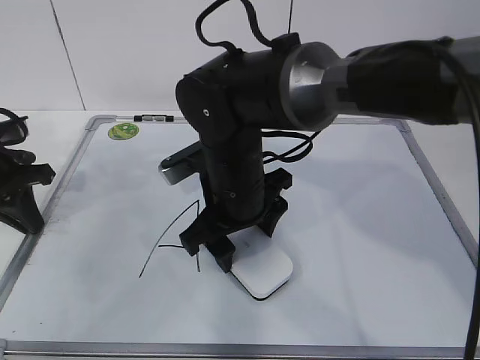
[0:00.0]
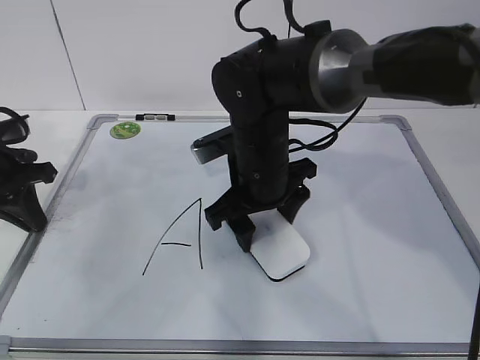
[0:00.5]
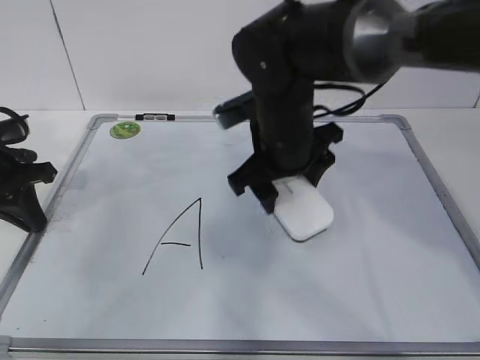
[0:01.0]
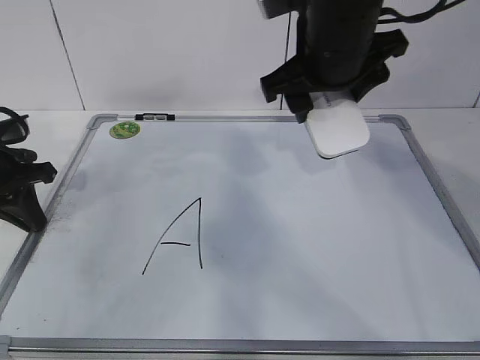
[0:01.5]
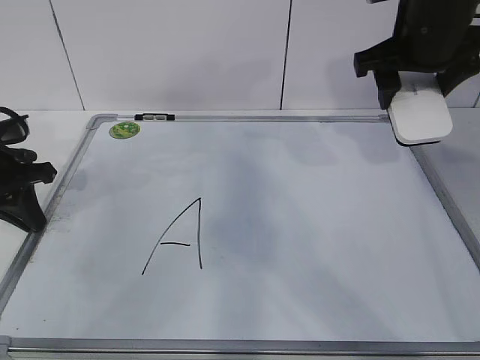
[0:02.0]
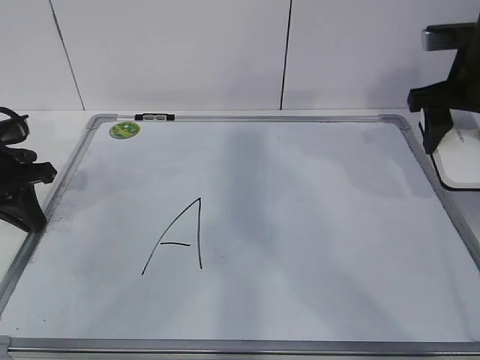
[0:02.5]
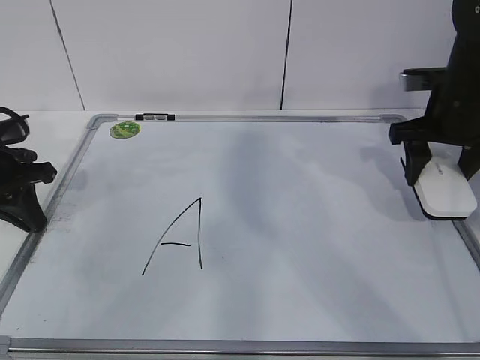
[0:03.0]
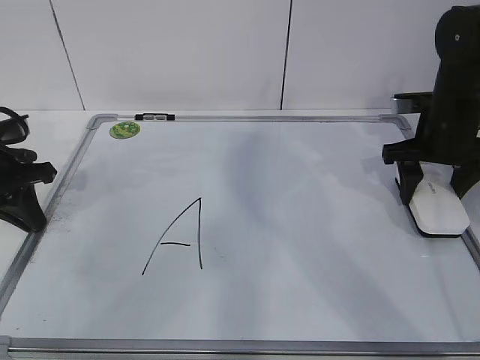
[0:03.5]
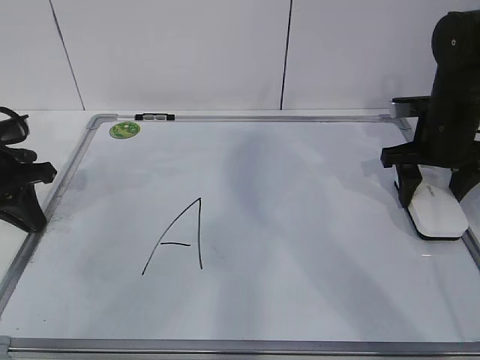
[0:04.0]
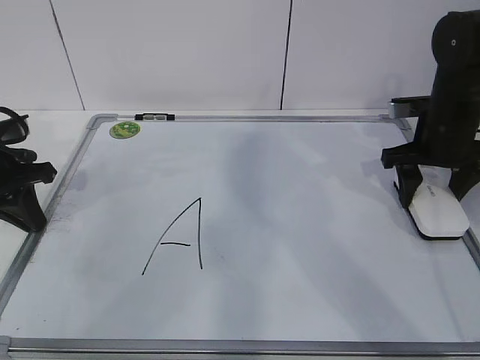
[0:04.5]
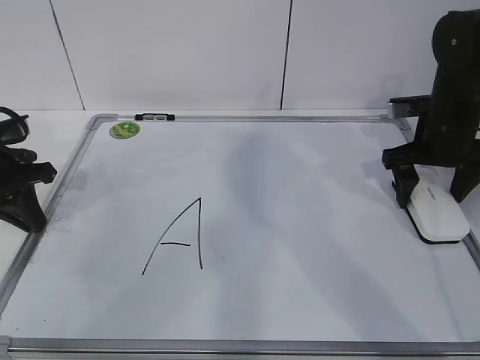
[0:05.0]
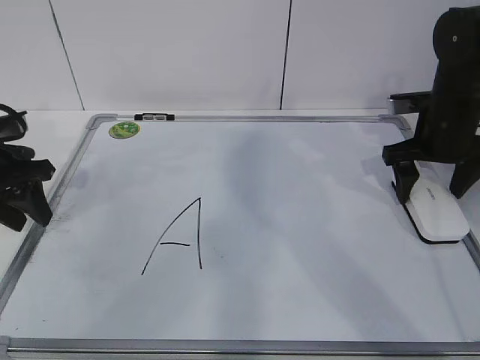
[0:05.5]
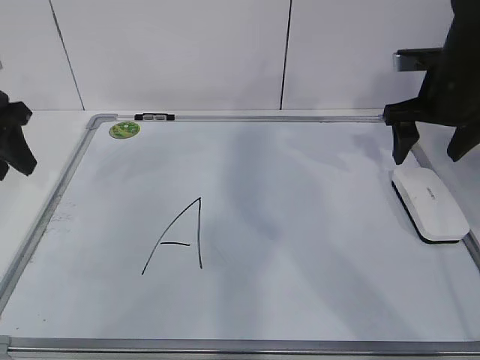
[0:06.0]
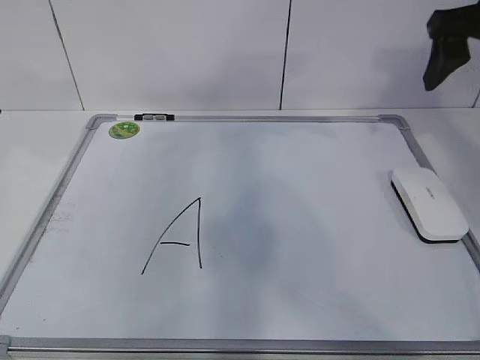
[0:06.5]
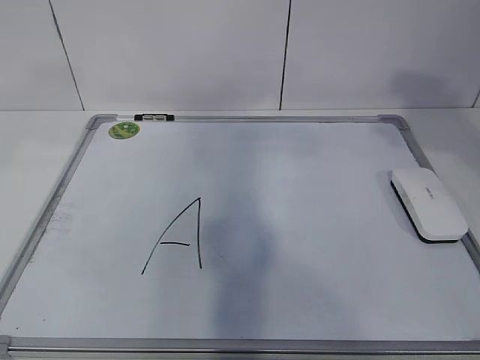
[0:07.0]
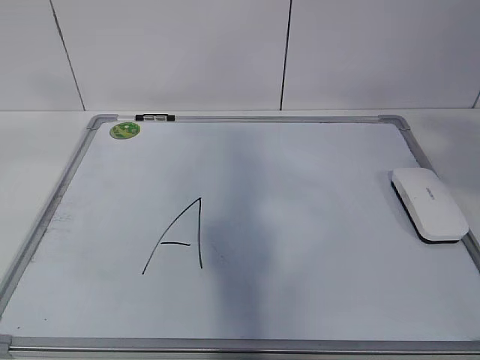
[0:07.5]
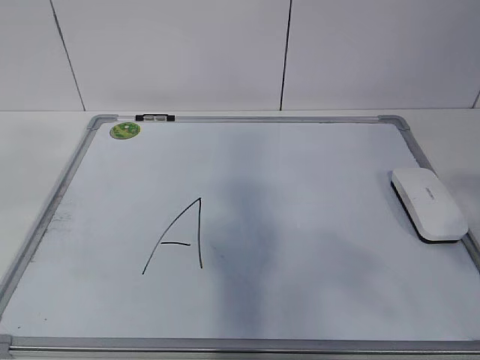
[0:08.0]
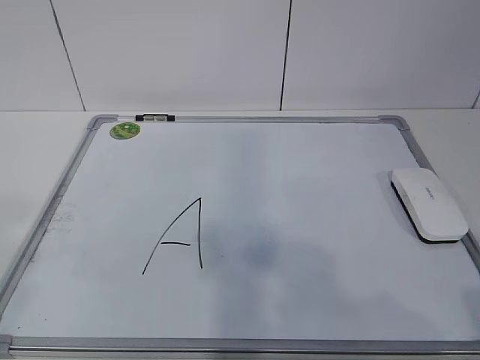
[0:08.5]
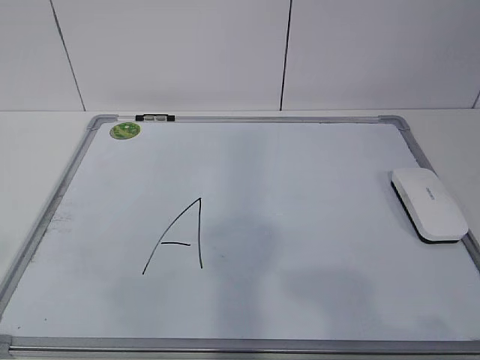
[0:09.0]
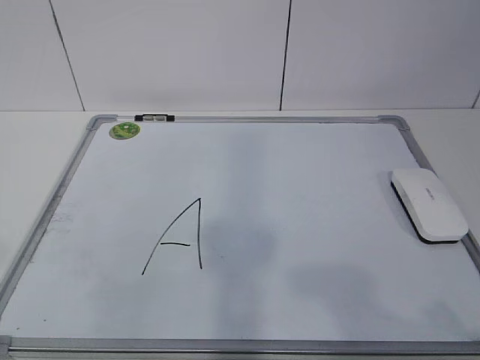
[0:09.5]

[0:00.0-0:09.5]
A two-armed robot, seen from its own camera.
Task of the whole recording: pick up the eraser on the blackboard and erase the letter "a".
0:00.0 to 0:02.0: The right gripper heads to the right and upward, covering about 25 cm.
0:02.0 to 0:04.0: The right gripper travels downward and to the right by approximately 15 cm.
0:04.0 to 0:05.5: The right gripper opens its fingers. Meanwhile the left gripper opens.
0:05.5 to 0:07.5: The left gripper travels upward and backward by approximately 40 cm; the right gripper travels backward and upward by roughly 40 cm, and closes its fingers.
0:07.5 to 0:09.5: Both grippers travel together downward and backward, about 20 cm.

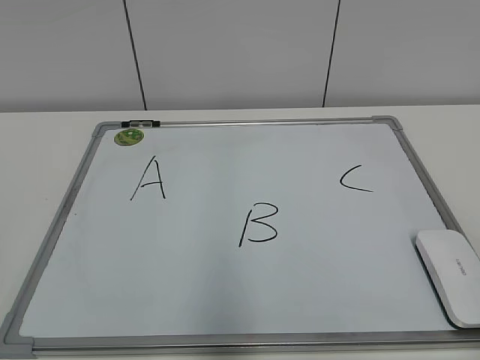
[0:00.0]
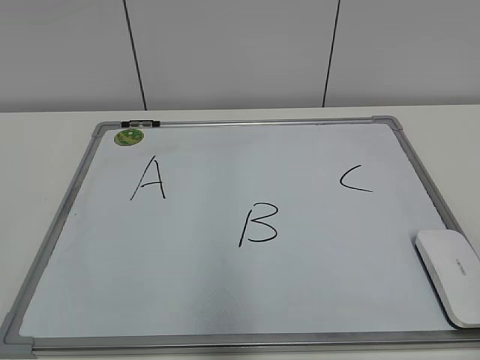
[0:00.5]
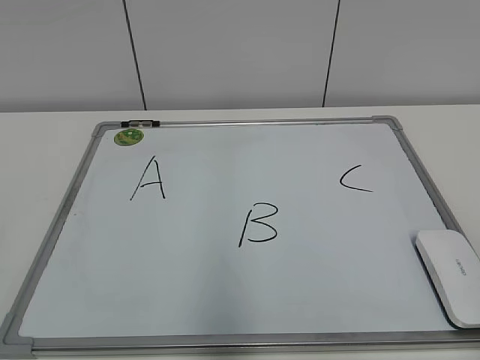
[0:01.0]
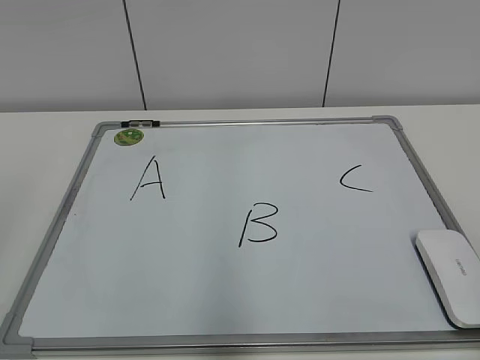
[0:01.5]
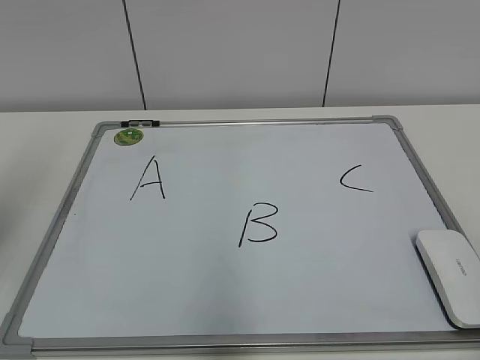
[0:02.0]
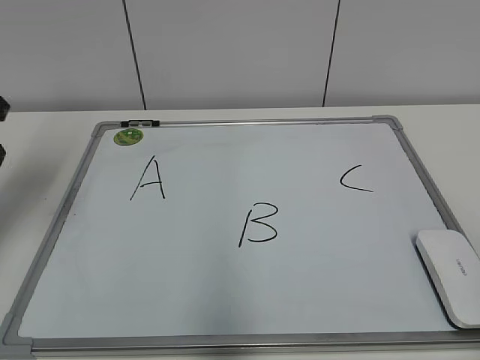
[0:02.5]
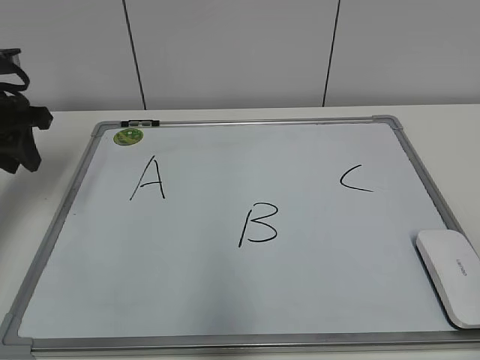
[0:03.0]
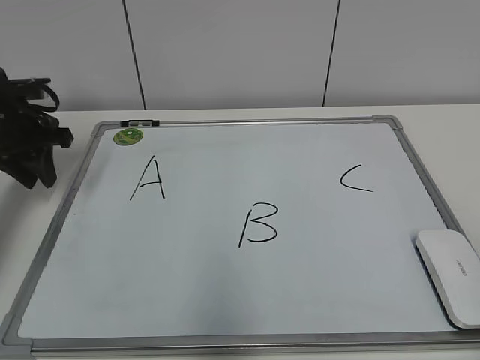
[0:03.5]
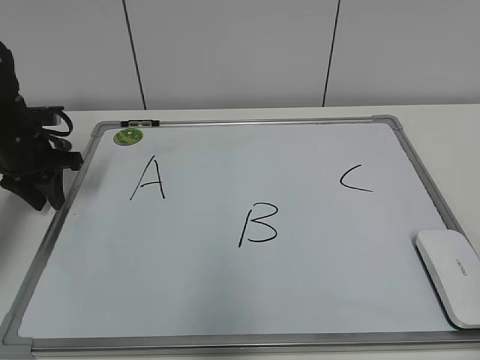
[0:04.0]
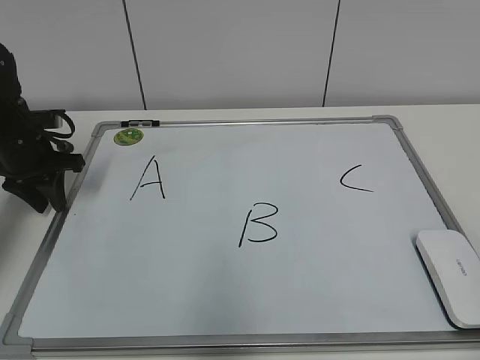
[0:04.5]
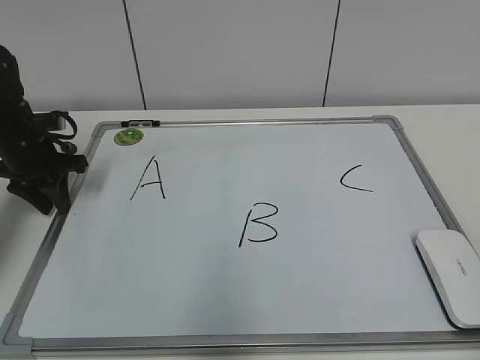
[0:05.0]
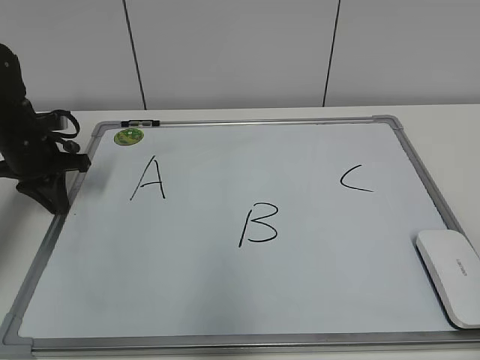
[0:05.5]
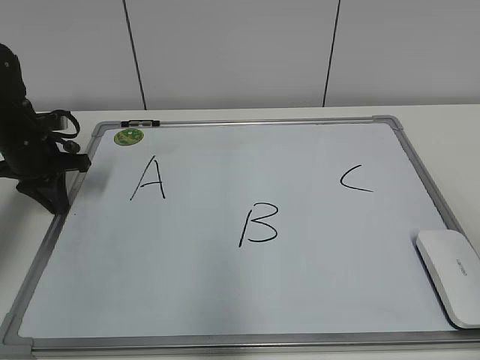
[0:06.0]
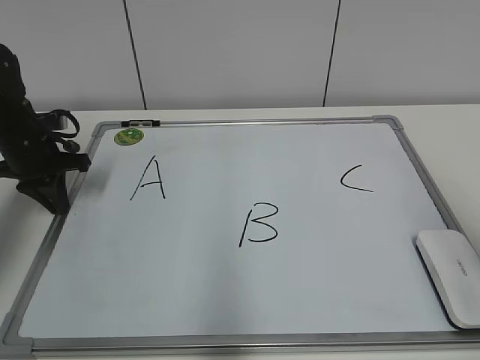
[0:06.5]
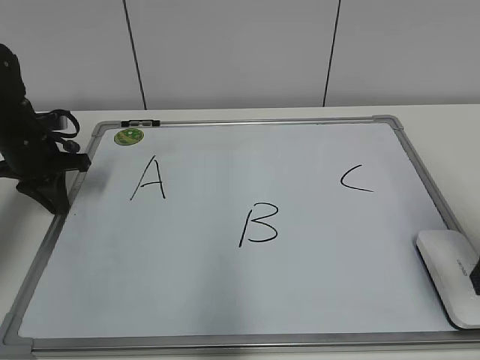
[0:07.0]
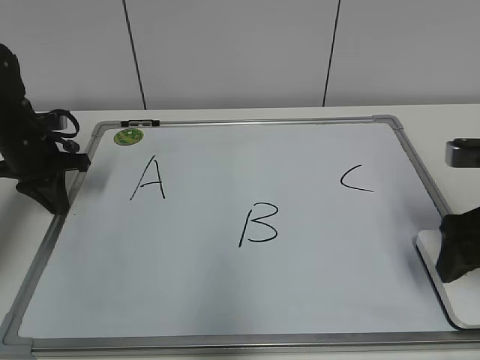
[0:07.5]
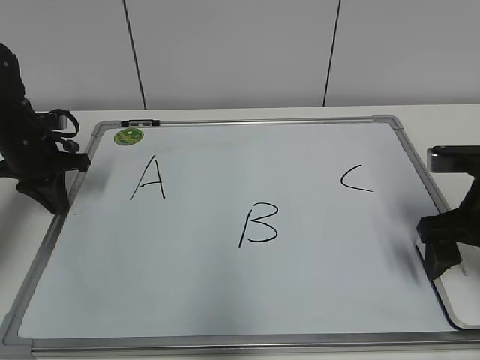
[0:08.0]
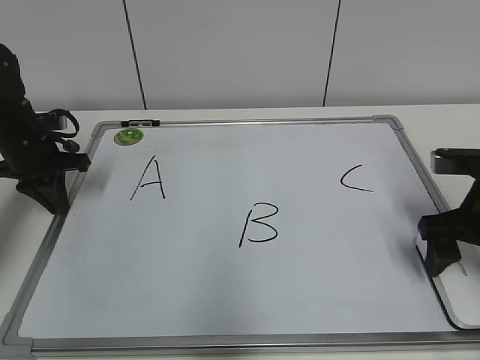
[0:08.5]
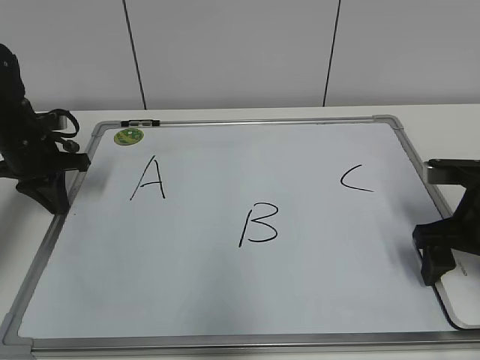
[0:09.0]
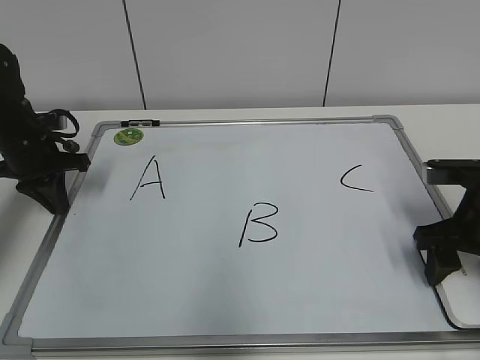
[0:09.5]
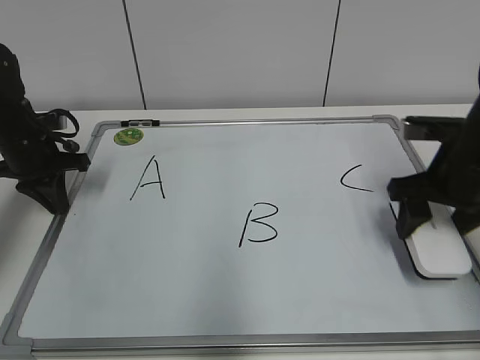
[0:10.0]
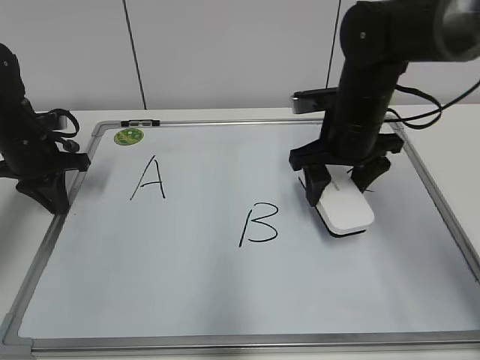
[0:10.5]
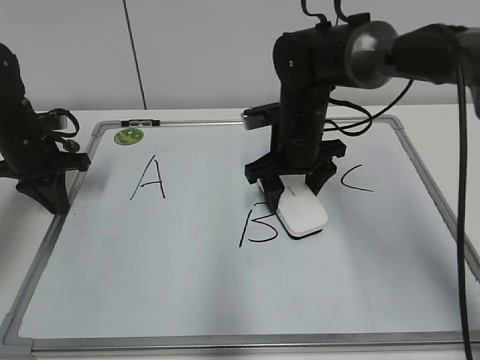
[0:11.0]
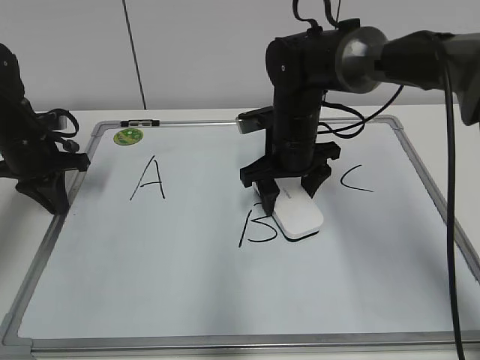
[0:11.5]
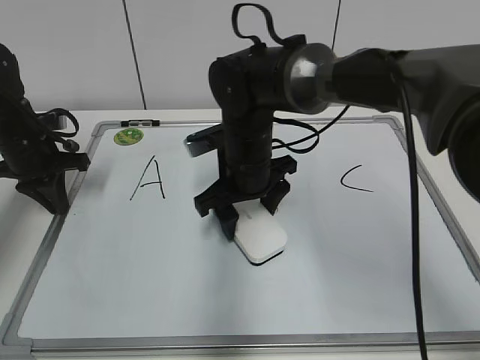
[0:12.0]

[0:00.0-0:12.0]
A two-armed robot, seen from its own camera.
Task of the whole recording: pick up the eraser on the blackboard and erase the letter "B".
Step, 0:00.0 to 0:09.5: Hold the drawing board steady with your left hand.
0:02.0 to 0:04.0: The left gripper moves forward and downward, some 30 cm.
0:04.0 to 0:06.0: The left gripper closes up.
0:06.0 to 0:08.0: The right gripper heads forward and downward, covering approximately 25 cm, and opens up.
0:08.0 to 0:10.0: The right gripper moves approximately 5 cm, and closes.
0:10.0 to 0:12.0: The right gripper moves to the left, approximately 25 cm.

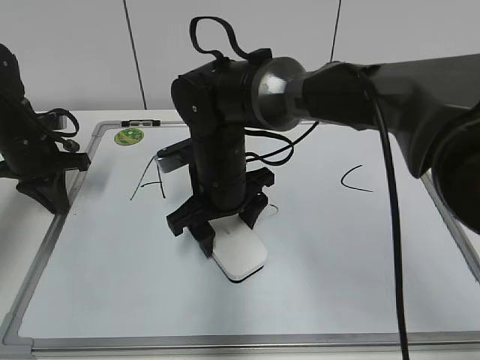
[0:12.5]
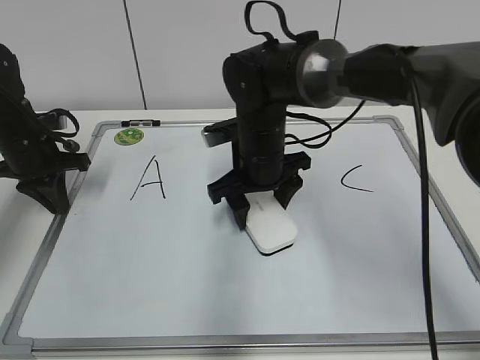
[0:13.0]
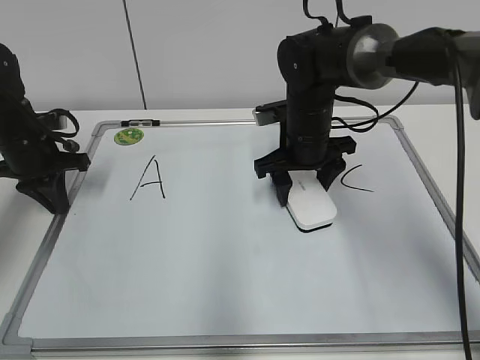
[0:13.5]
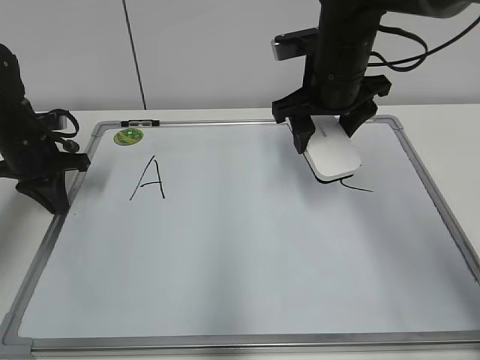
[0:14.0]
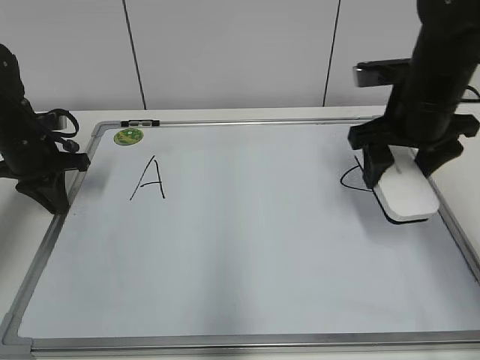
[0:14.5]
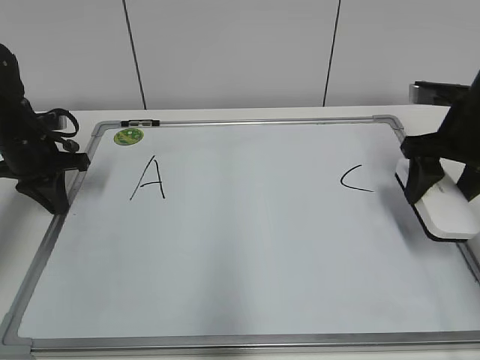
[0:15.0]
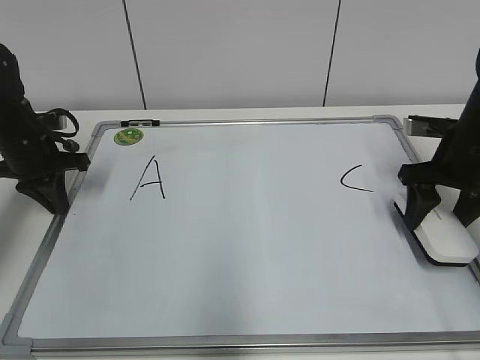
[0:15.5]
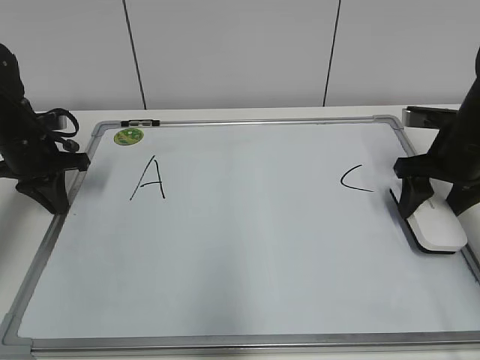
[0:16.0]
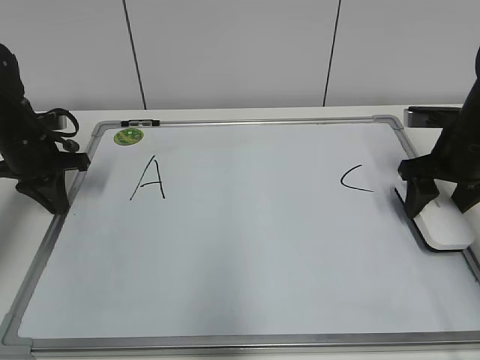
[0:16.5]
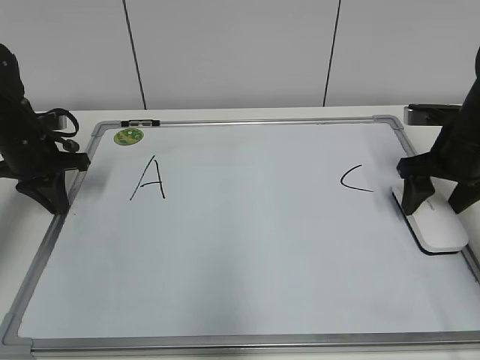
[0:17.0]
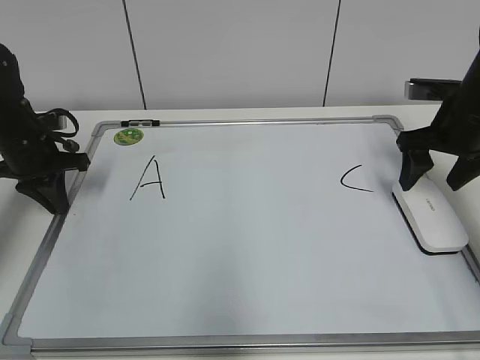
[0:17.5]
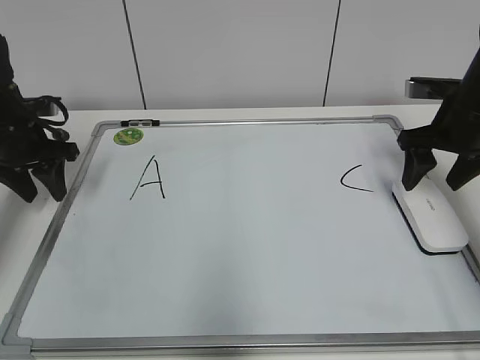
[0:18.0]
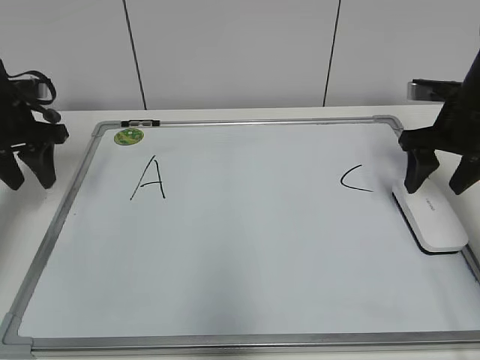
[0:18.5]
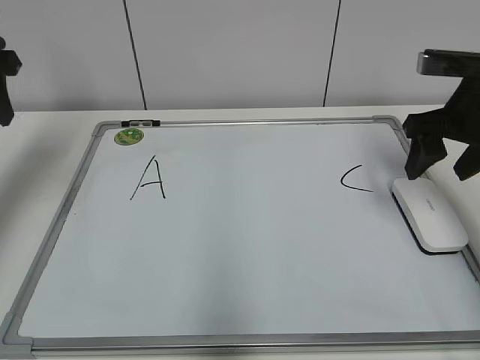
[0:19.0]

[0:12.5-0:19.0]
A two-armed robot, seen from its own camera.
Task of the whole recording: pick up the eraser on the blackboard and erase the letter "B".
Step, 0:14.0 to 0:16.5: Put down the eraser with your right hand.
0:12.5 to 0:14.5: The right gripper shifts approximately 20 cm to the right.
0:14.5 to 0:17.0: The right gripper travels to the right and downward by approximately 10 cm, and opens its fingers.
0:17.0 to 0:19.0: The left gripper heads upward, covering roughly 20 cm, and opens; the right gripper is displaced upward by roughly 10 cm, and closes.
